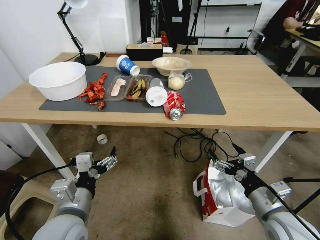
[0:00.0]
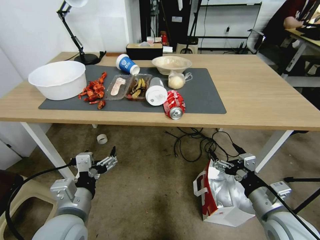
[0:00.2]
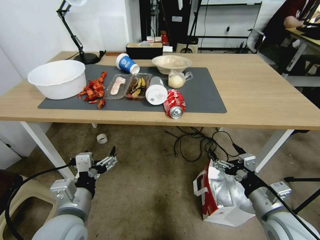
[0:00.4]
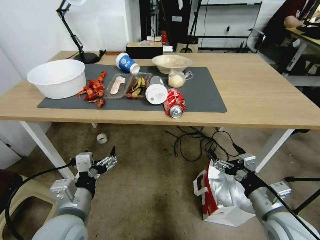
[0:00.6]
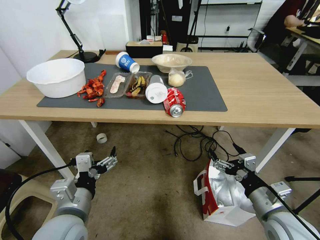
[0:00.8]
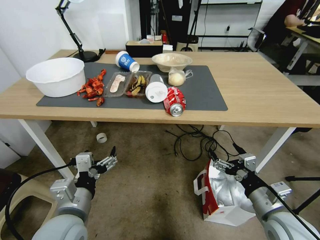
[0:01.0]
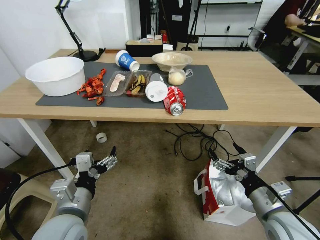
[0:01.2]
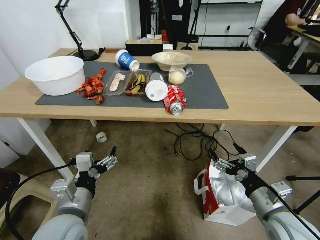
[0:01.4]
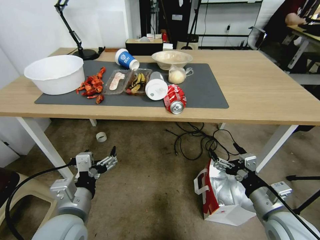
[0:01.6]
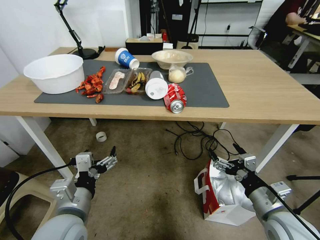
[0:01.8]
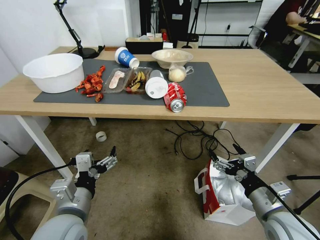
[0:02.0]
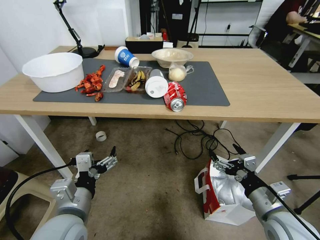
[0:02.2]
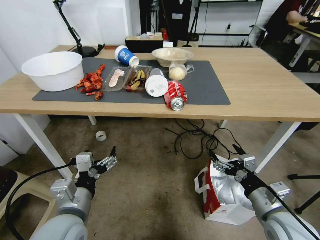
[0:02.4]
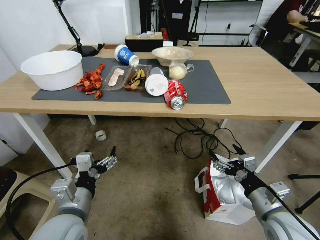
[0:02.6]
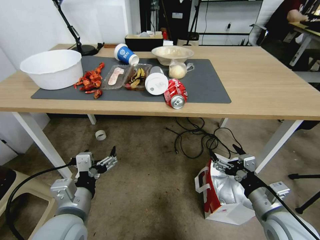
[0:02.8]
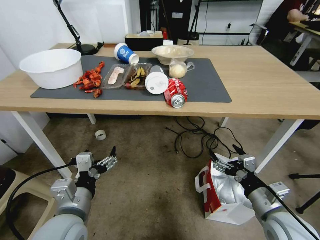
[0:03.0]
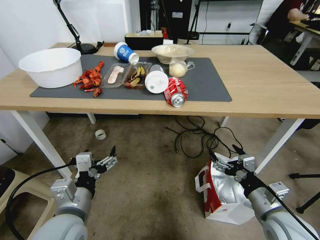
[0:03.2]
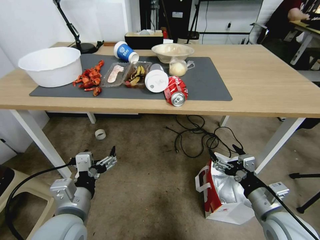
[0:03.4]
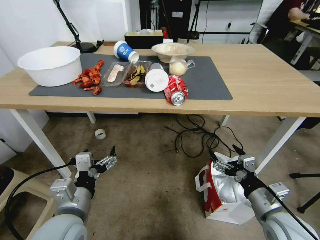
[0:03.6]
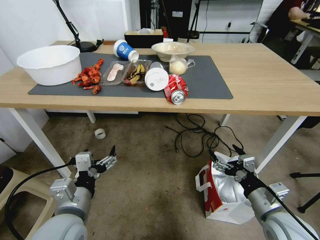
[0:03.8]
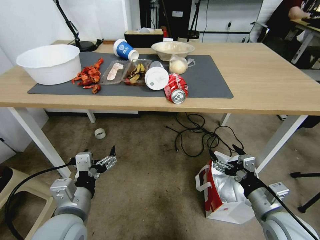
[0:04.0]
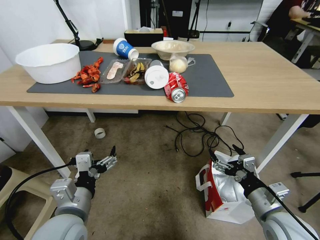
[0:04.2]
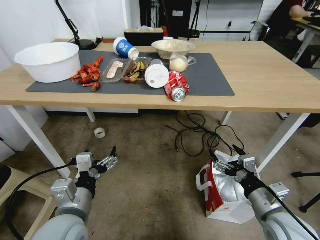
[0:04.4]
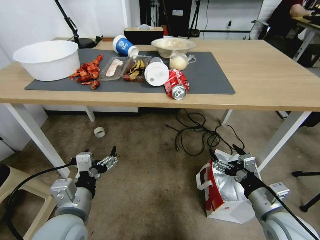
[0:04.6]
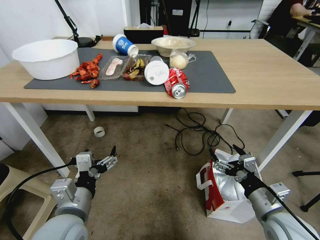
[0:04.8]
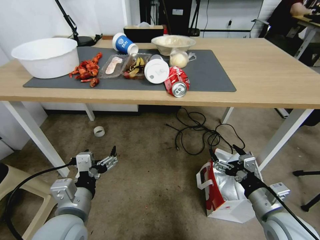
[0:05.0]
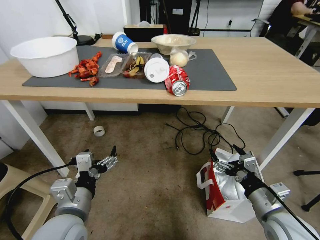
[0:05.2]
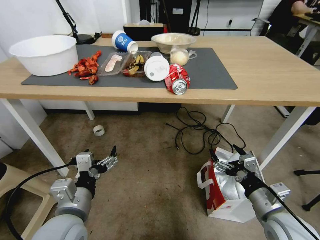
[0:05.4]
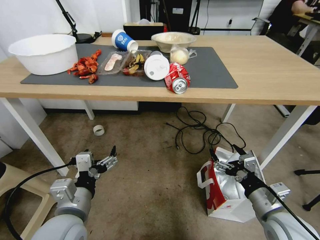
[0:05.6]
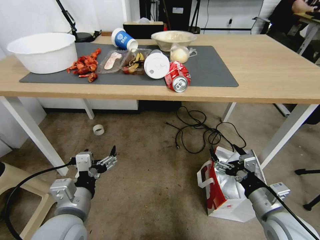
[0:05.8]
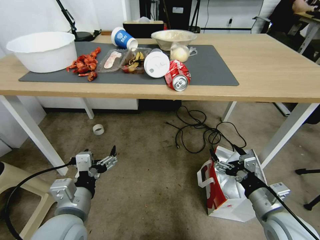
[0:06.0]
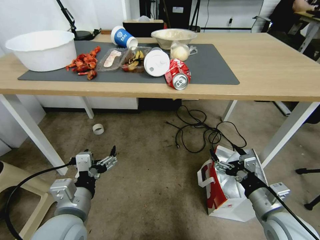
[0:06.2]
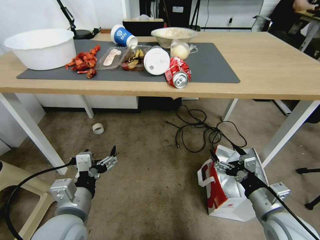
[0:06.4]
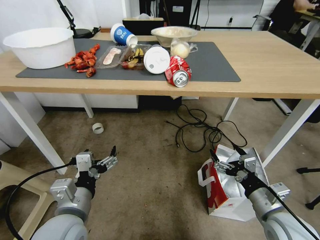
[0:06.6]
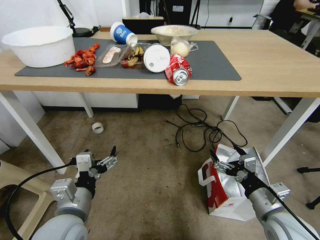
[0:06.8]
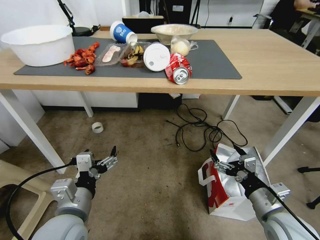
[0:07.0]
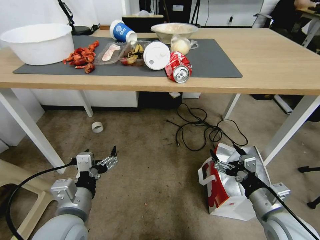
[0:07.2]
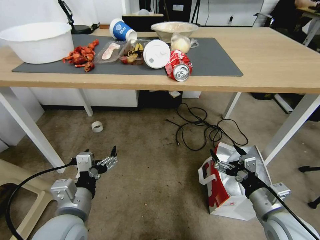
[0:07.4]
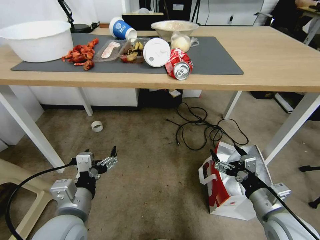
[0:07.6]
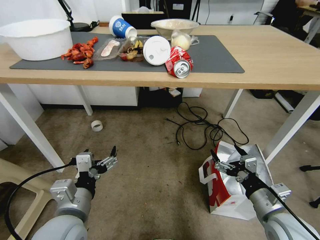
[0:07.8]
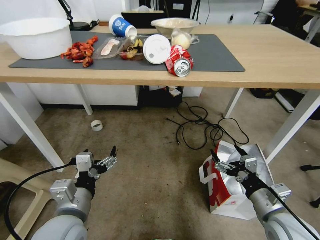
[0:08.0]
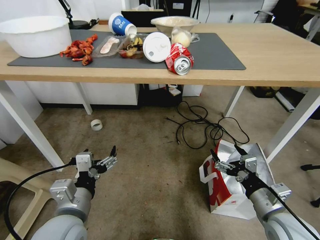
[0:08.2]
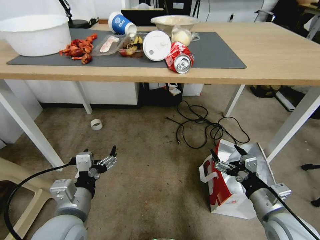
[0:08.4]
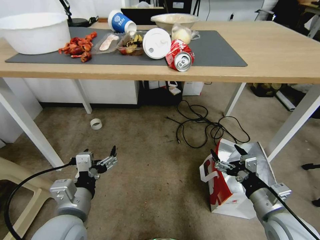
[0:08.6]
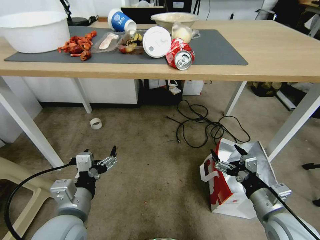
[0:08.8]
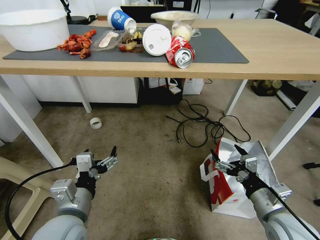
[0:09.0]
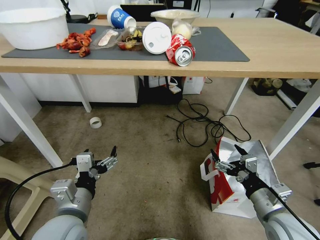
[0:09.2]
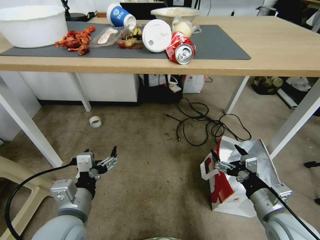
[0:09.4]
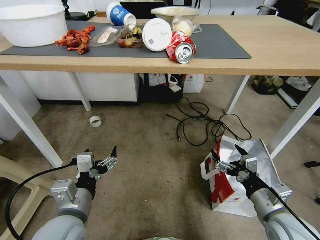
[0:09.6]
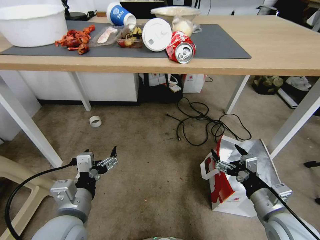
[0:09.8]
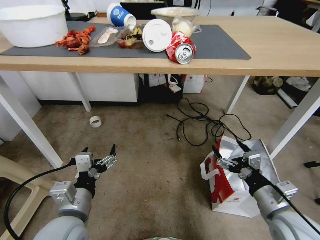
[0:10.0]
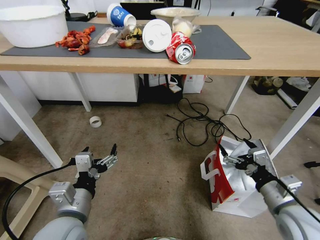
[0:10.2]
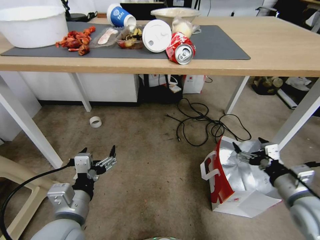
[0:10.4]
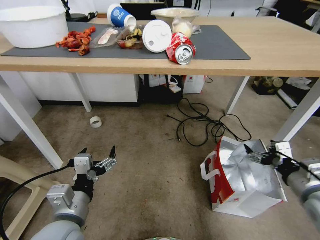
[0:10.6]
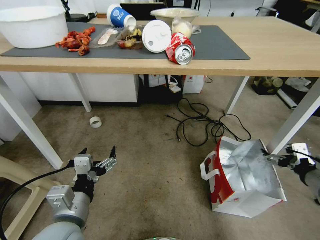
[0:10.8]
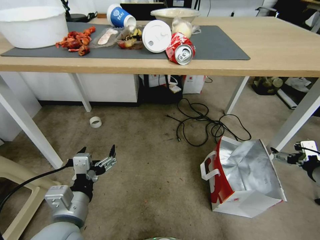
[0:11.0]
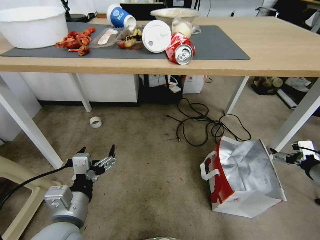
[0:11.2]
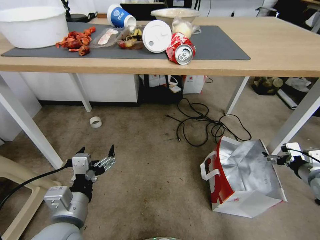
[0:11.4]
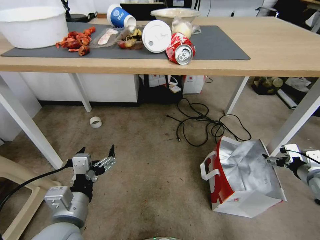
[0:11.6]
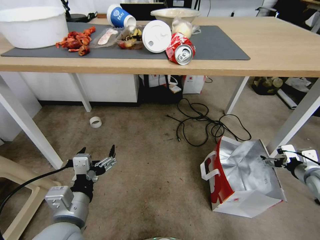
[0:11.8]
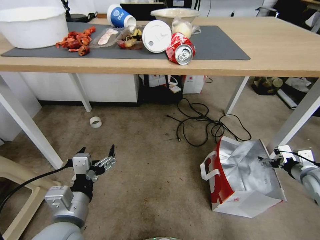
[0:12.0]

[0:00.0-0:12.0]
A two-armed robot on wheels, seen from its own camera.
Task of the whole recording: Pick up the food delivery bag from the floor and place it on the table.
0:09.0 to 0:10.4: The right gripper is displaced to the right by approximately 5 cm.
0:10.4 to 0:12.0: The right gripper goes about 15 cm to the right and forward.

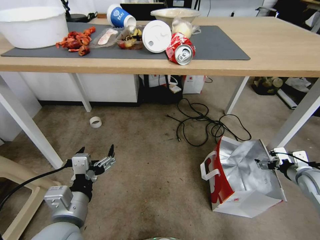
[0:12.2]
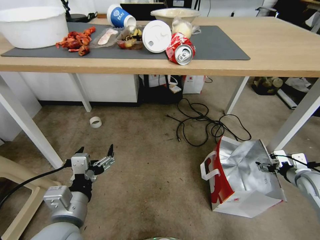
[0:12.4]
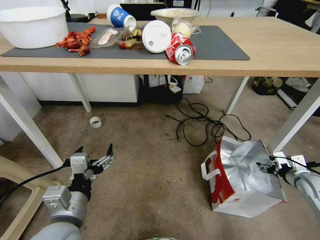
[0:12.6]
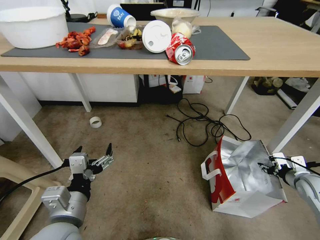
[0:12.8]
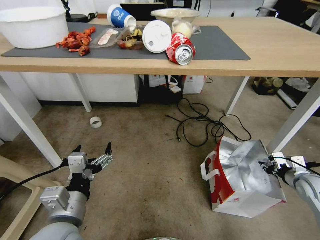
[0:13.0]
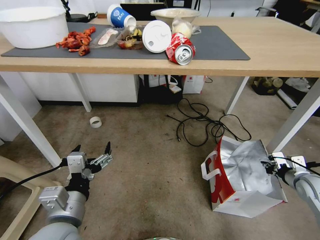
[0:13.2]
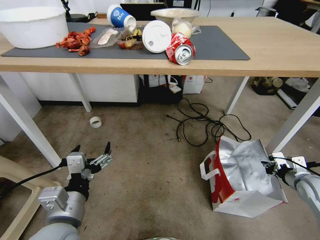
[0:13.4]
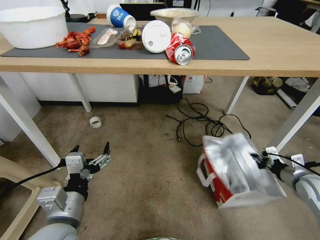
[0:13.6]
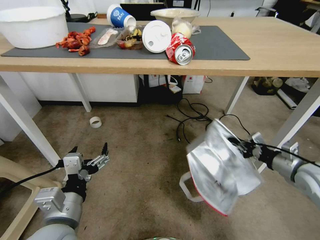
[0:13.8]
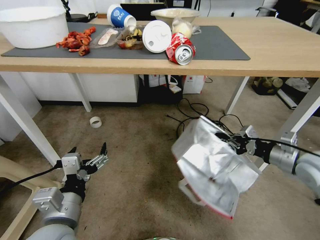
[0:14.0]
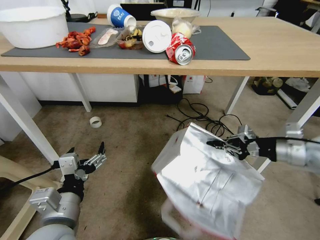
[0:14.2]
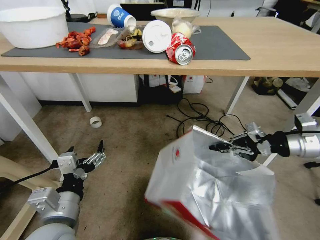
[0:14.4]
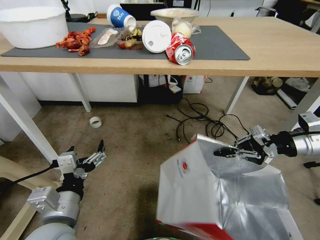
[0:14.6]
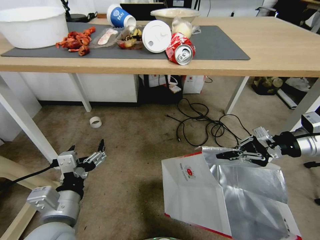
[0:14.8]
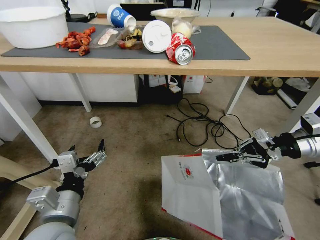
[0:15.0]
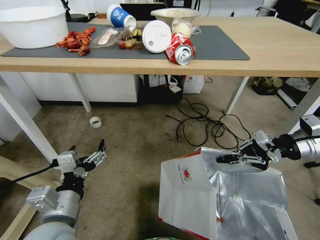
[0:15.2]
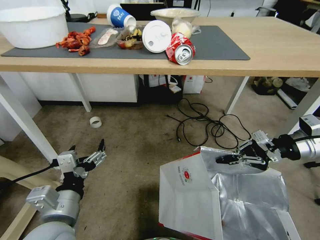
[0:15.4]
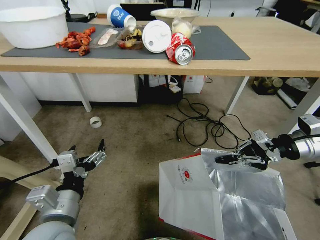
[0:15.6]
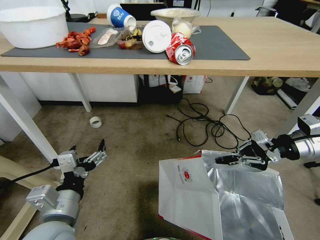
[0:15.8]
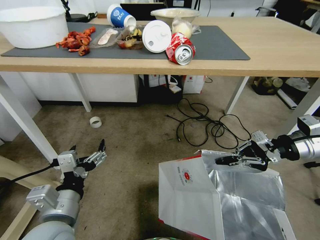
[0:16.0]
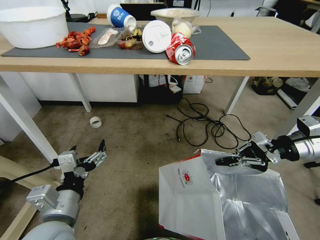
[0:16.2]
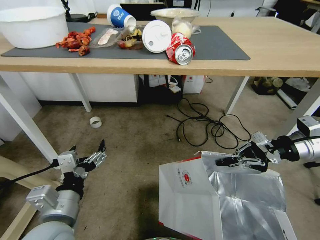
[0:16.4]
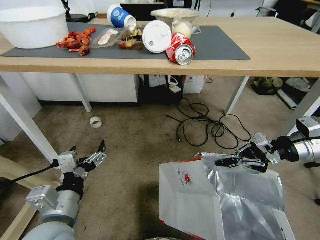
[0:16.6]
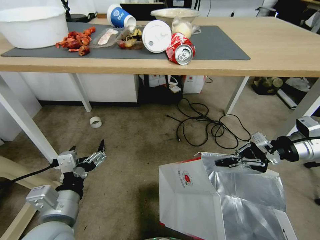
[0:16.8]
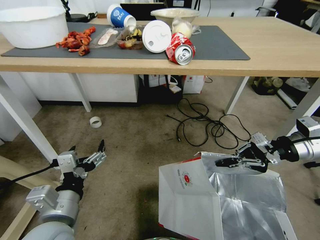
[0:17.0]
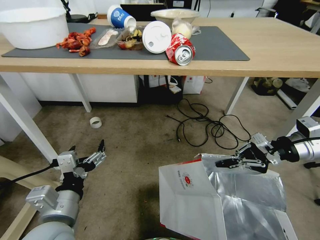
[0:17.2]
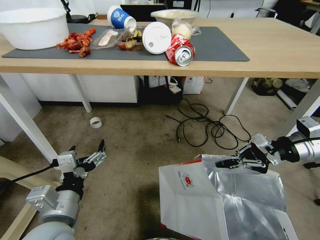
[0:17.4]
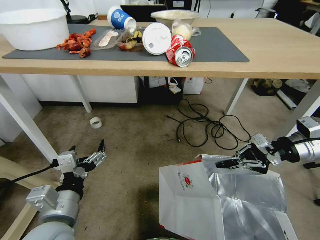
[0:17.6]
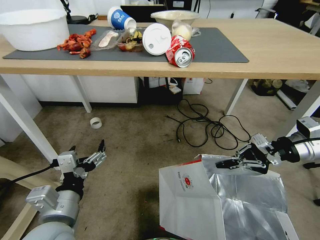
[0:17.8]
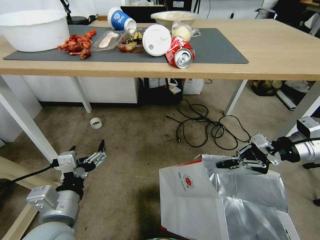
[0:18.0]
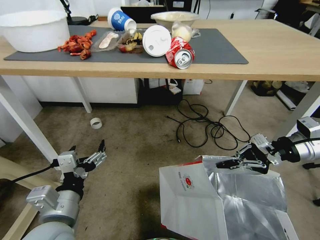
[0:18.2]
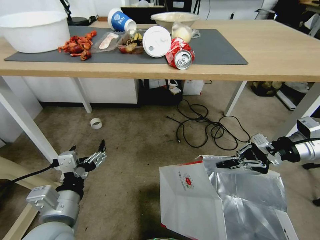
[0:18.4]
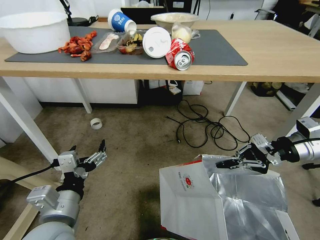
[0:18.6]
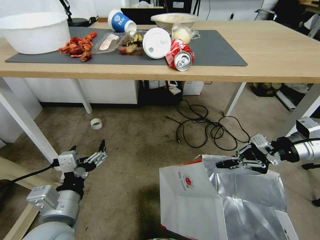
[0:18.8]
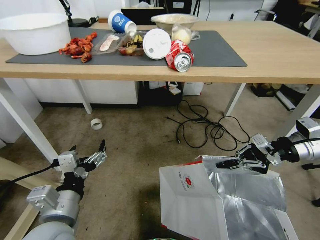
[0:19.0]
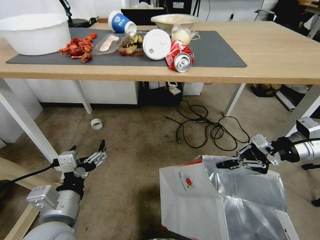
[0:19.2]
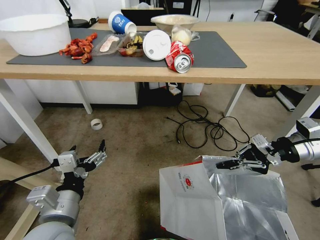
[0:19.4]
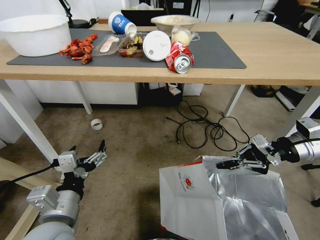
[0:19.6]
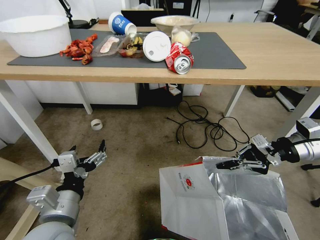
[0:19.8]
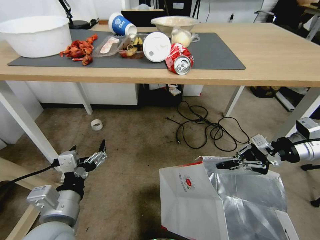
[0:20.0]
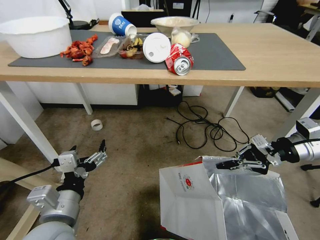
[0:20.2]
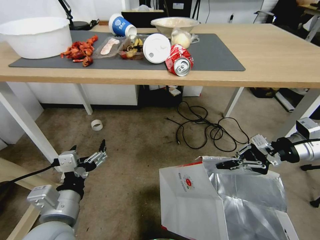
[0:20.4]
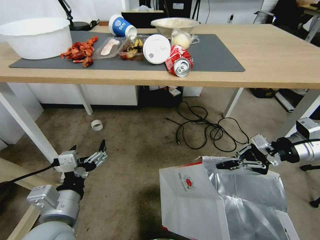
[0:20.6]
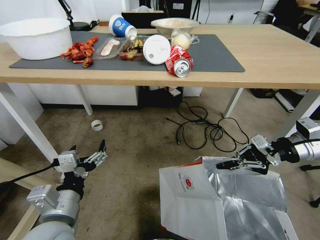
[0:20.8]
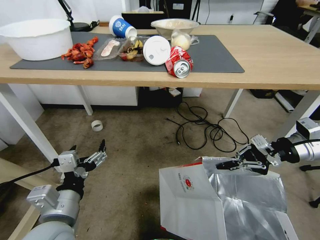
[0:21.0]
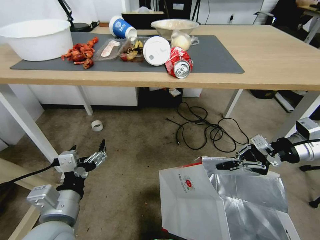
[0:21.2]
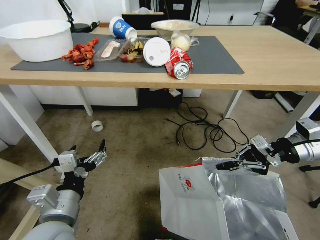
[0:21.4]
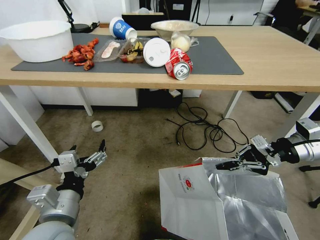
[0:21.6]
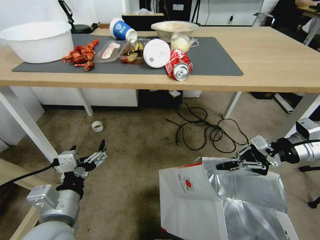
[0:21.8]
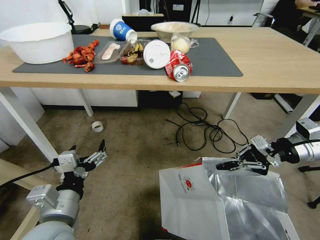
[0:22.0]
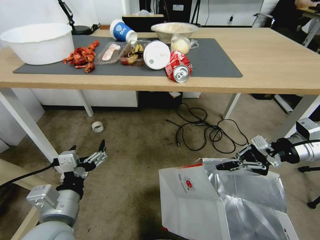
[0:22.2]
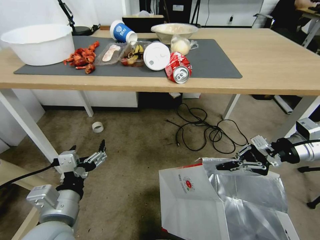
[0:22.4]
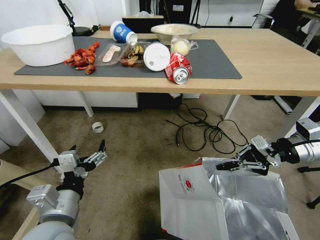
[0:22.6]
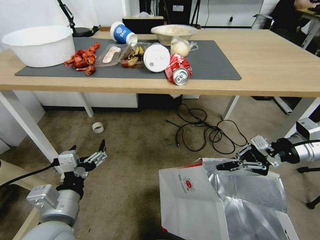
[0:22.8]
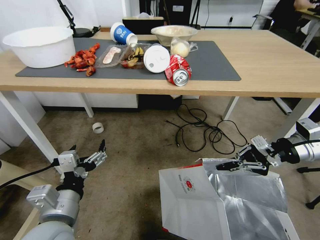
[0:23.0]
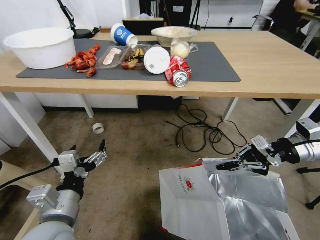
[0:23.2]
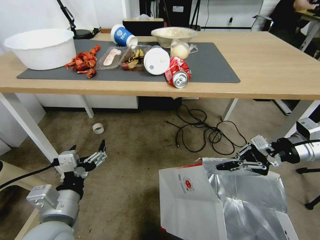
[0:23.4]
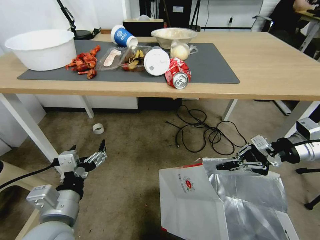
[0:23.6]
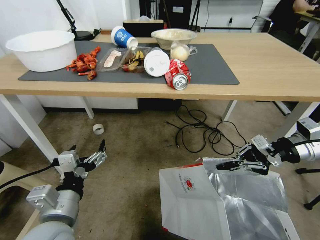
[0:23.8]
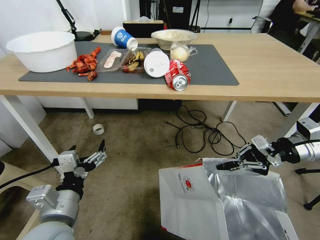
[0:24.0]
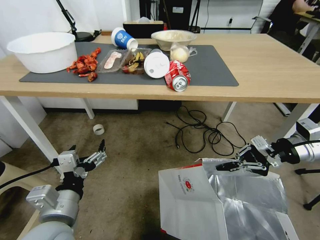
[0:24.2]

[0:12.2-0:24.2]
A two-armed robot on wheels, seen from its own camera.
Task of the whole recording: Pick up the food delivery bag from the floor and place it on the table.
0:12.2 to 0:13.8: The right gripper moves to the left, approximately 5 cm, and closes its fingers.
0:13.8 to 0:15.2: The right gripper heads upward and forward, covering roughly 15 cm.
0:15.2 to 0:22.6: The two grippers keep their place.
